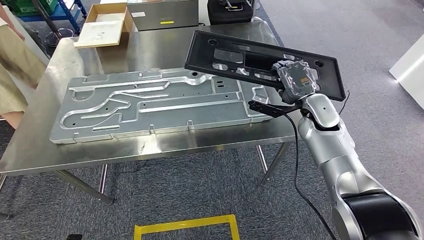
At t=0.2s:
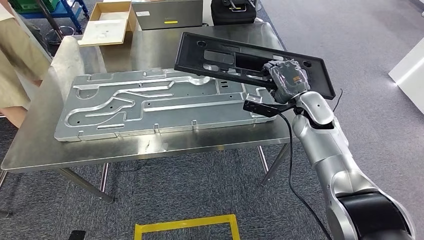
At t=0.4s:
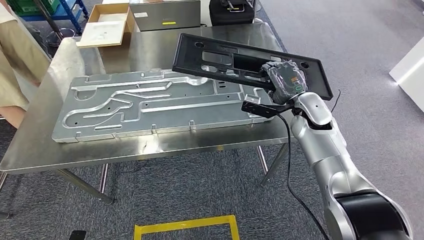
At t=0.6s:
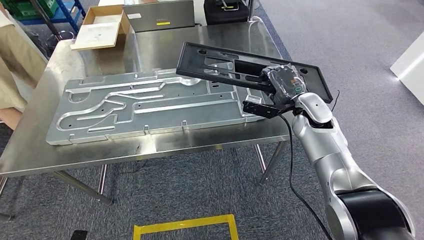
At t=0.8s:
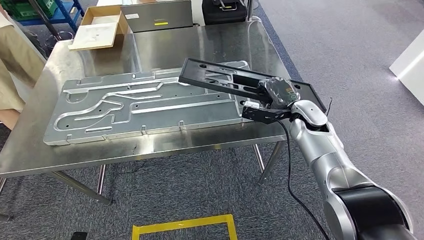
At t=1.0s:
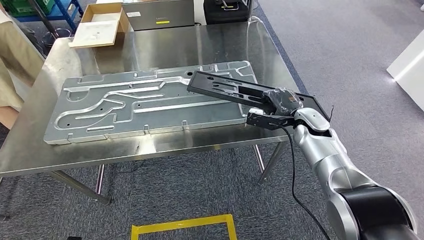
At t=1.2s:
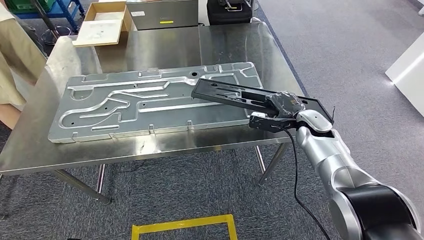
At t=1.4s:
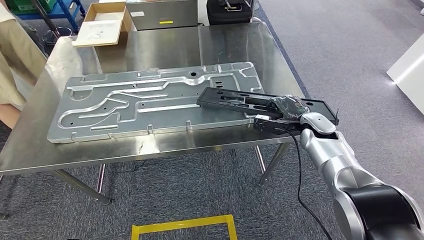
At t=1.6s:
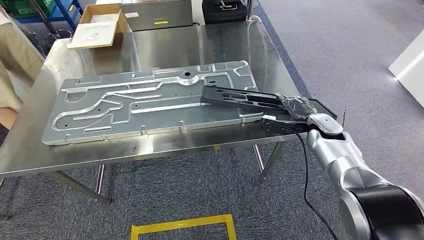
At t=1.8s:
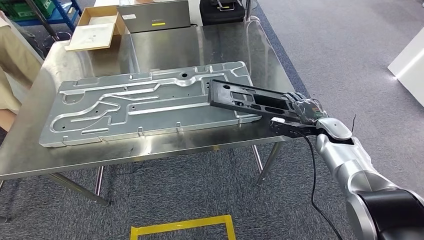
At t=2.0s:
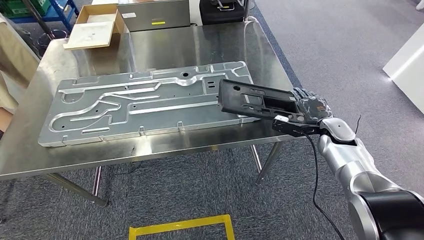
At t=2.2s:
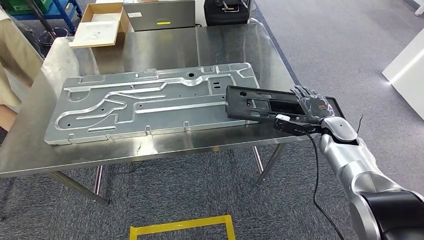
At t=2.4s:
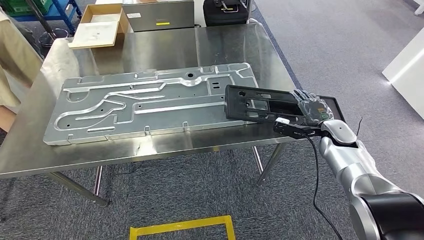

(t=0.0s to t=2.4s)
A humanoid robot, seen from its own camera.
Step, t=0.0s - t=2.4s: Insert the large material into the corresponding hole on the workbench.
